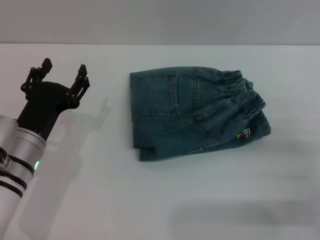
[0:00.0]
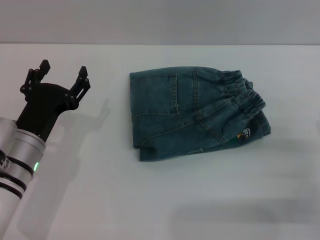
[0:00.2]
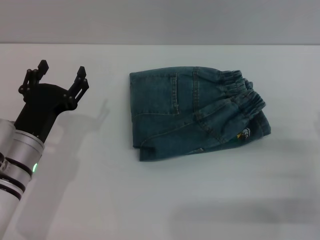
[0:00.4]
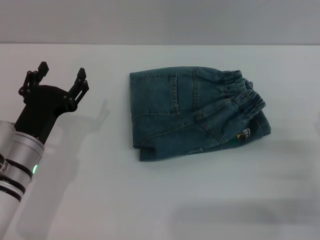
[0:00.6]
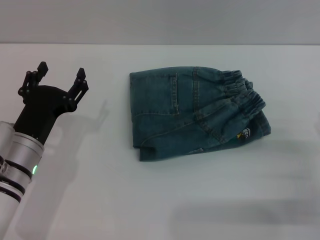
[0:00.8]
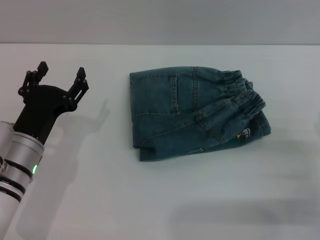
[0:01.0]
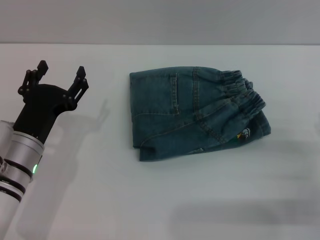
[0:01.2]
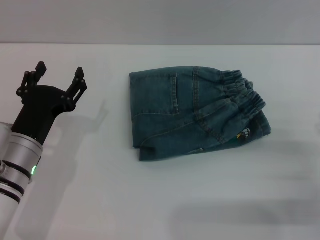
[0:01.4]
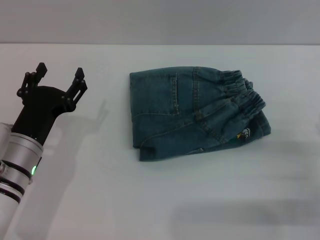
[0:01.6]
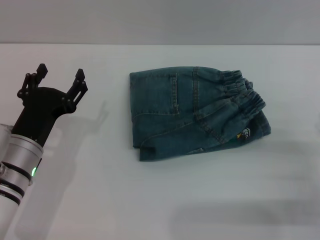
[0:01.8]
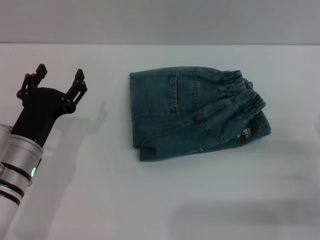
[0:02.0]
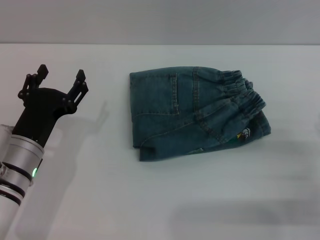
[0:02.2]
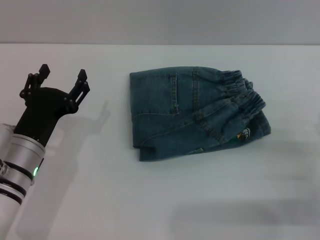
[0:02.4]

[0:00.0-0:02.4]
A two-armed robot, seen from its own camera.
1.2 to 2.4 s: Neither gripper changes place.

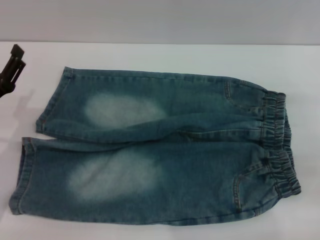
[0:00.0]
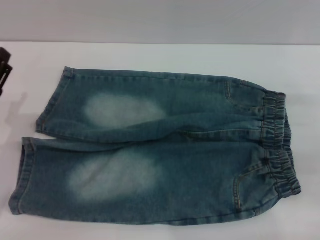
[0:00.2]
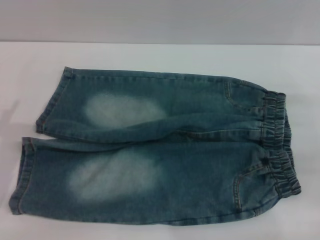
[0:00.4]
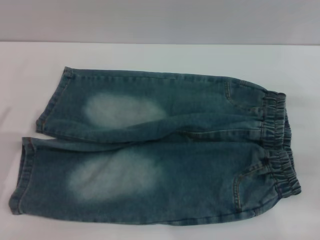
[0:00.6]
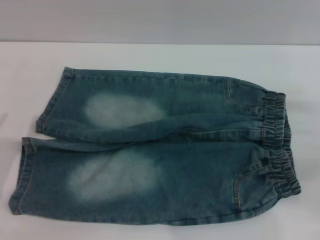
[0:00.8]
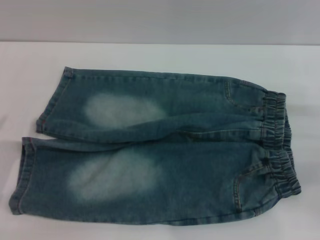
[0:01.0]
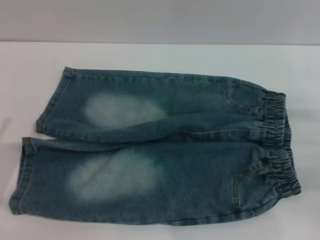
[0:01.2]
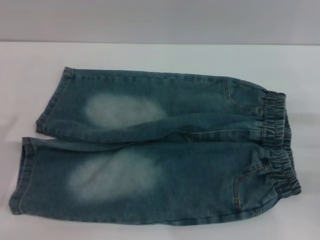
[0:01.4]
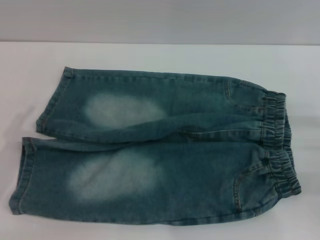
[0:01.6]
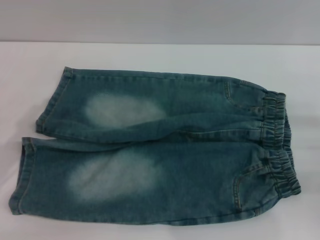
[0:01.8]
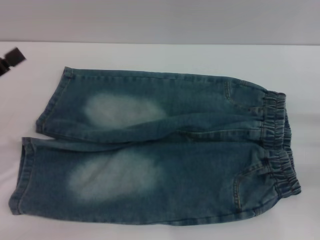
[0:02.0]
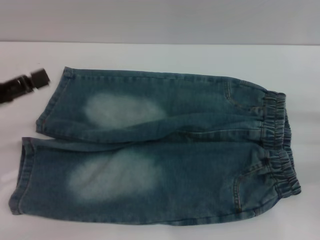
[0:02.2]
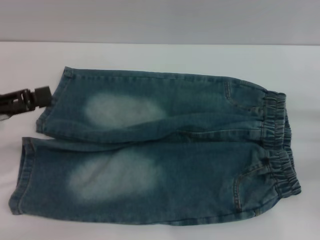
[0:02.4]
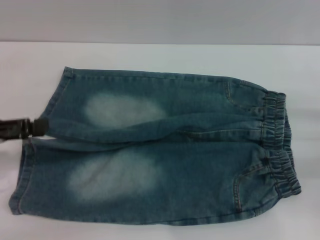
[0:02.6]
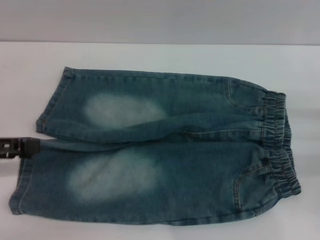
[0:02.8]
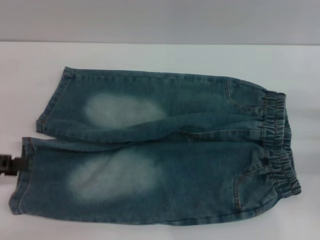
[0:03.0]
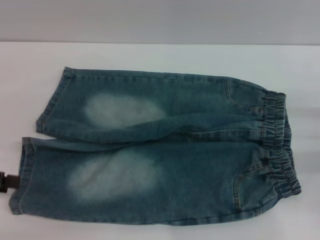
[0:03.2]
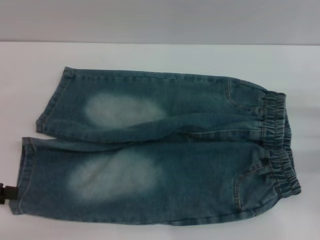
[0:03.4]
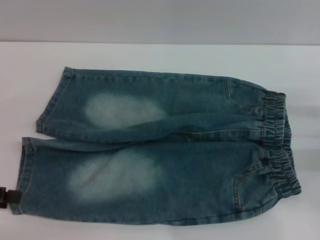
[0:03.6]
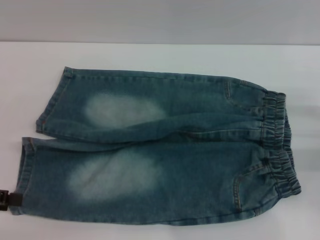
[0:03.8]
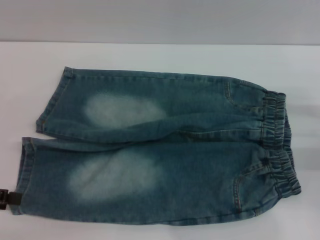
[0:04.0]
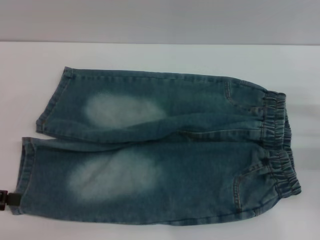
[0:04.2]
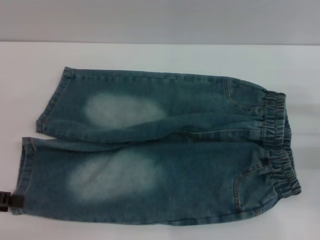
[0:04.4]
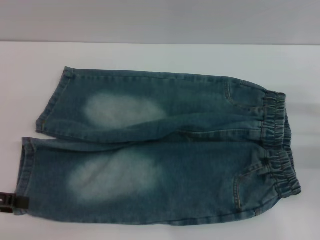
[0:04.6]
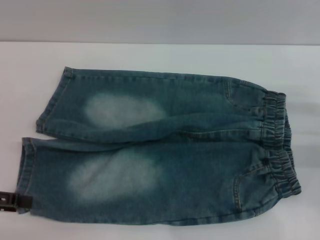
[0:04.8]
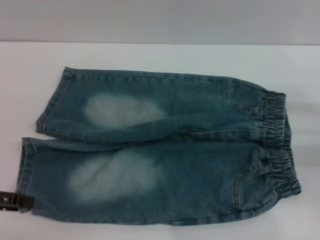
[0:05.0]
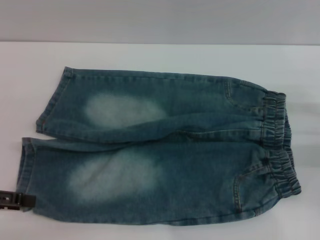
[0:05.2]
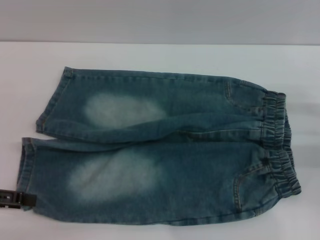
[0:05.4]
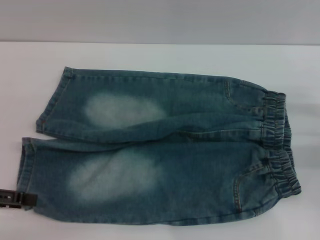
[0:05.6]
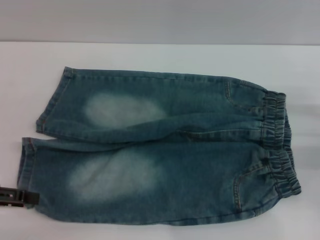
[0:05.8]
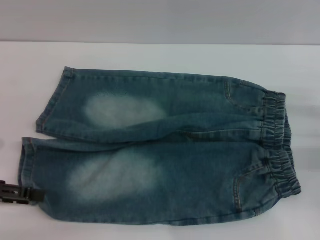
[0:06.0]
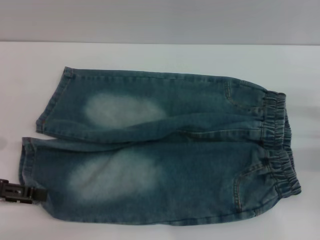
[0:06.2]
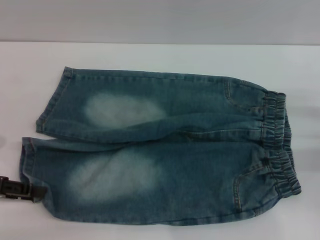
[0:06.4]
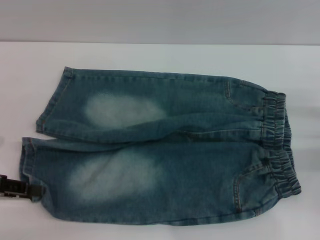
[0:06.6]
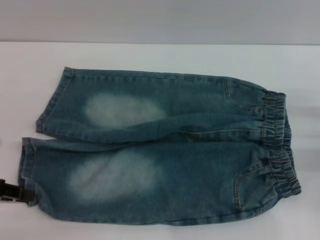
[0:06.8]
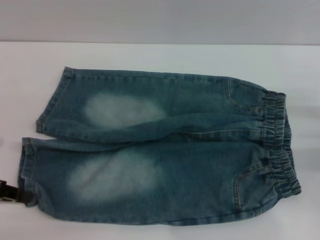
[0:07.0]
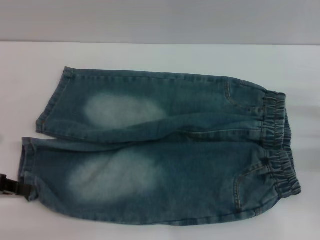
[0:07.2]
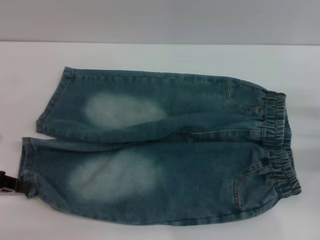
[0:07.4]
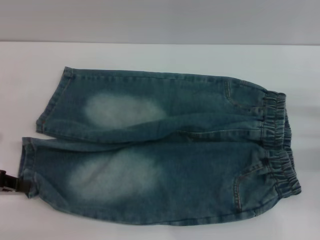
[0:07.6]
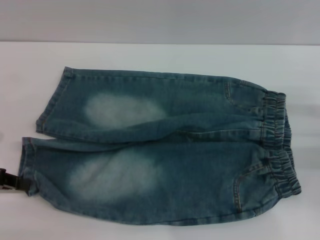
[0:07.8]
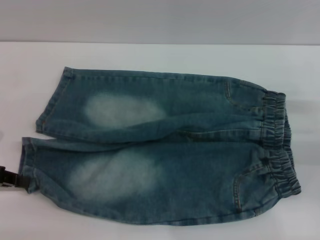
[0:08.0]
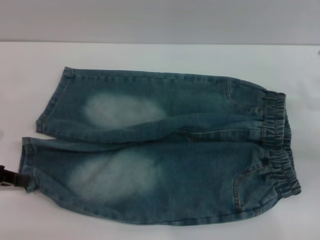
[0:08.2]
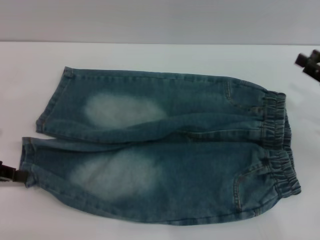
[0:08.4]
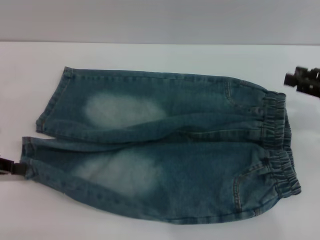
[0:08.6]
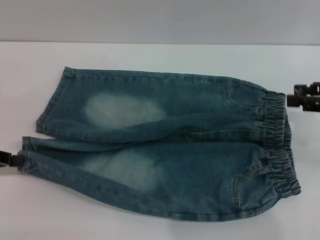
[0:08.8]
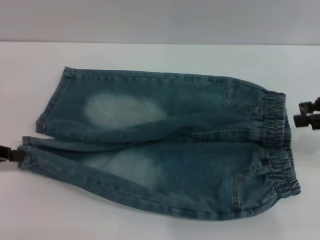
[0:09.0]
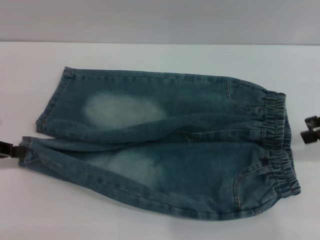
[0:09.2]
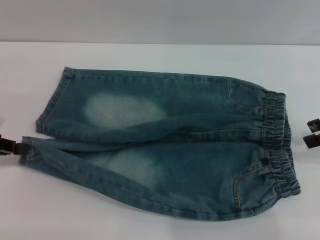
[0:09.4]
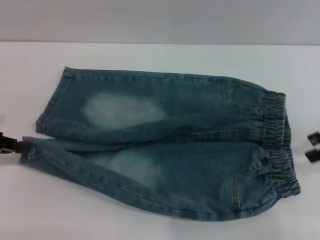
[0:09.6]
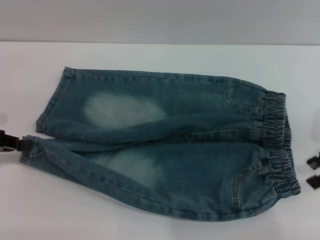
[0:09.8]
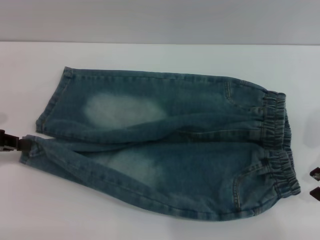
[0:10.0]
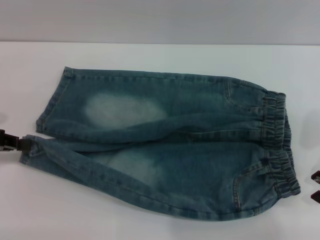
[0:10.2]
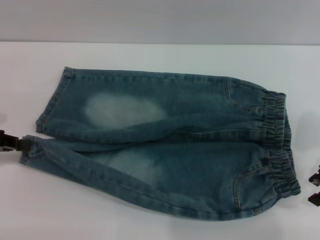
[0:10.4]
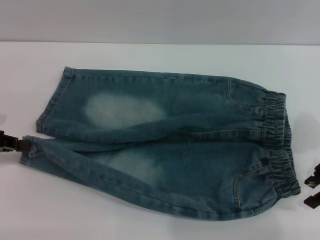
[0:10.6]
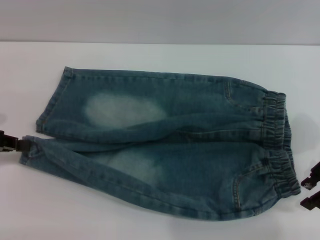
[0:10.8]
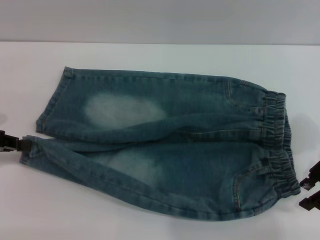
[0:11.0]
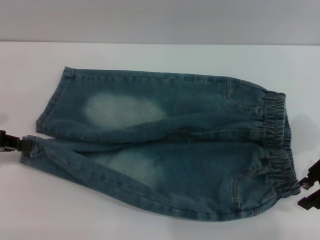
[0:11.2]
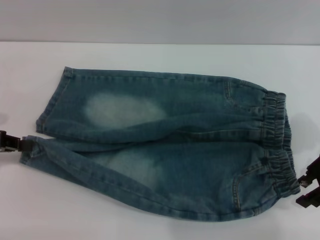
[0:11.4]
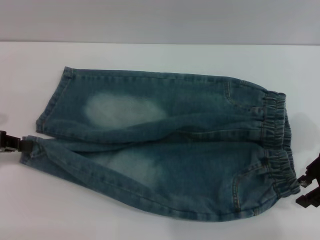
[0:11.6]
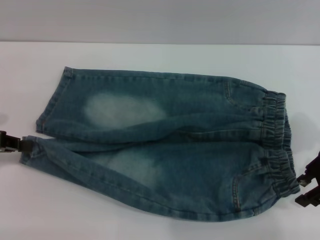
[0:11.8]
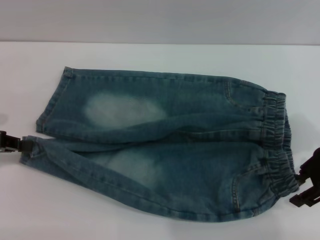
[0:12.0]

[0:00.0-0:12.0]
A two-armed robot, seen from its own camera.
0.0 to 1.6 s: The left gripper goes roughly 5 cm backward.
1.6 to 3.0 s: The left gripper travels to the left, forward and upward by roughly 10 cm.
3.0 to 6.0 s: The grippers stay close to where they were, moving slightly.
6.0 to 7.6 s: The left gripper closes up.
7.6 to 9.0 s: The right gripper travels upward by about 15 cm.
9.0 to 10.4 s: The right gripper travels to the left by about 5 cm.
10.4 to 12.0 s: The grippers make only small movements.

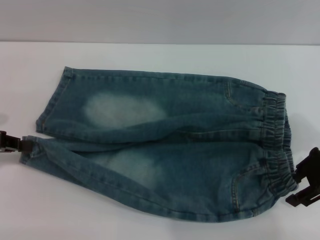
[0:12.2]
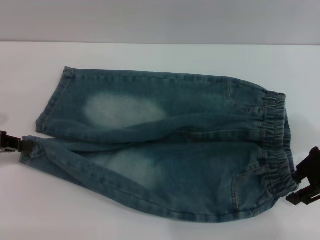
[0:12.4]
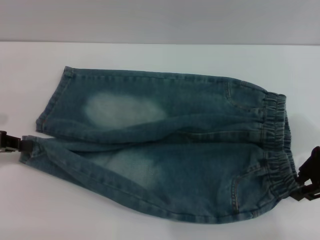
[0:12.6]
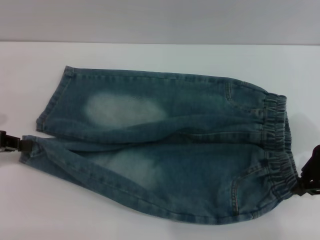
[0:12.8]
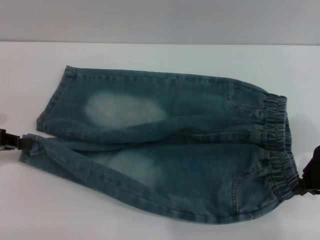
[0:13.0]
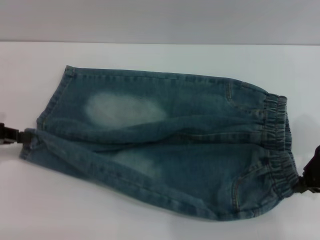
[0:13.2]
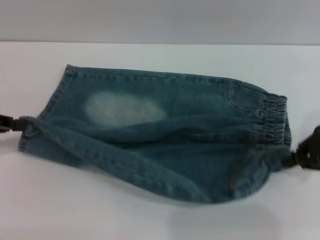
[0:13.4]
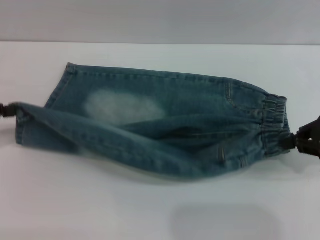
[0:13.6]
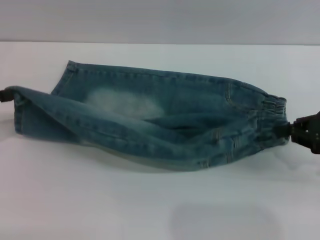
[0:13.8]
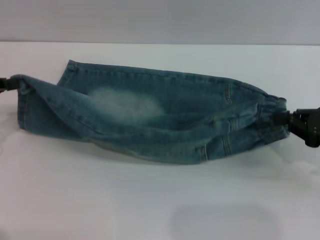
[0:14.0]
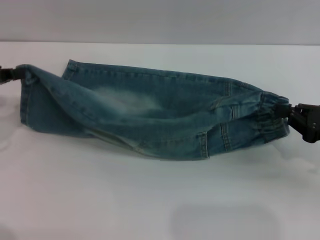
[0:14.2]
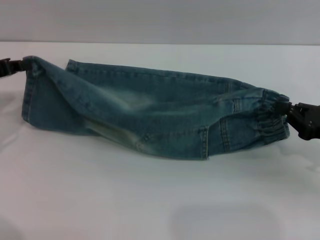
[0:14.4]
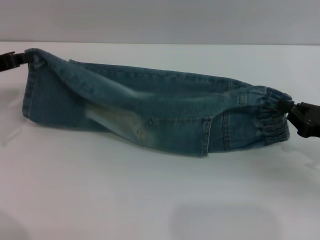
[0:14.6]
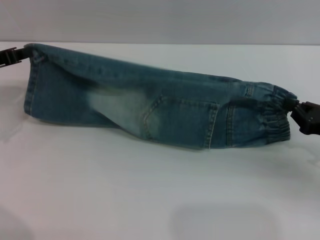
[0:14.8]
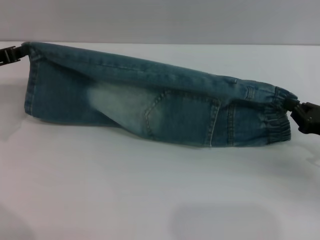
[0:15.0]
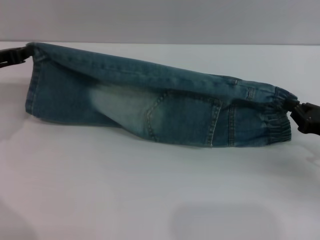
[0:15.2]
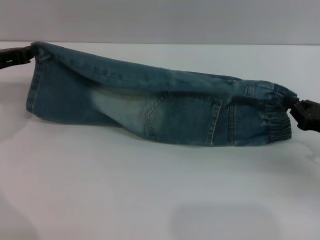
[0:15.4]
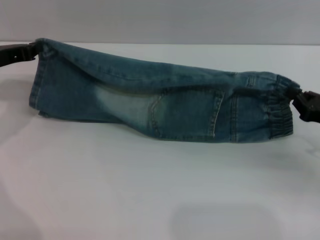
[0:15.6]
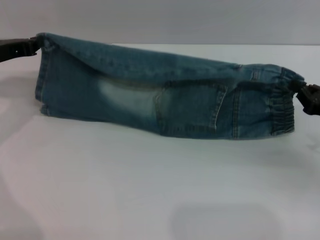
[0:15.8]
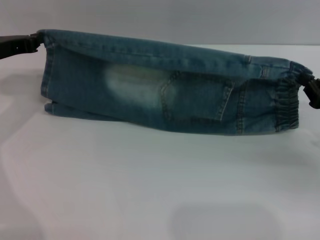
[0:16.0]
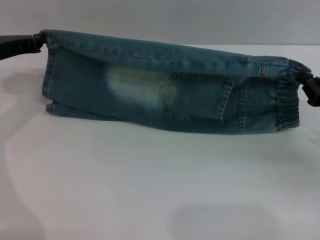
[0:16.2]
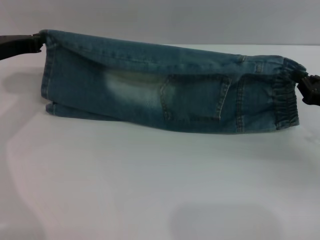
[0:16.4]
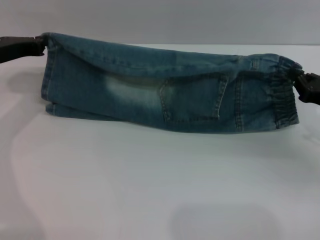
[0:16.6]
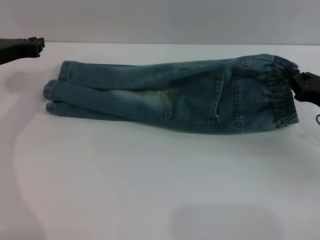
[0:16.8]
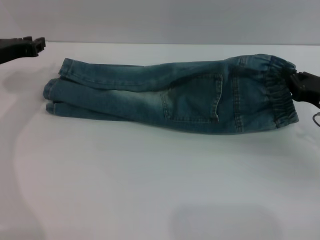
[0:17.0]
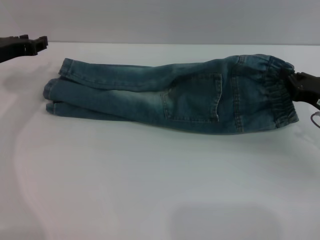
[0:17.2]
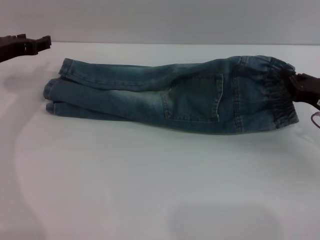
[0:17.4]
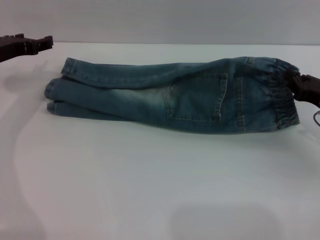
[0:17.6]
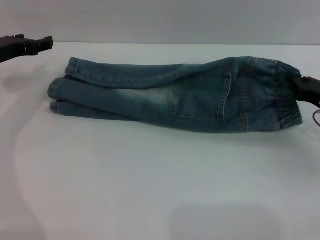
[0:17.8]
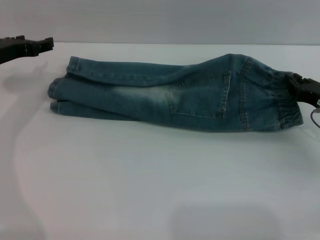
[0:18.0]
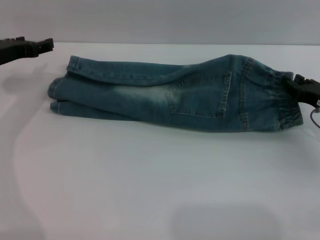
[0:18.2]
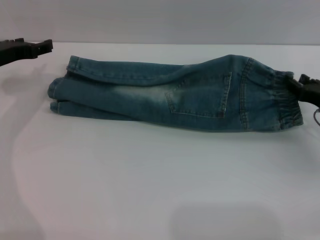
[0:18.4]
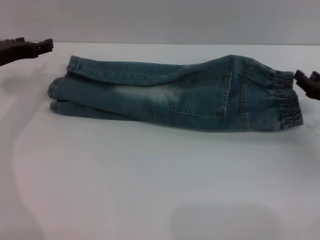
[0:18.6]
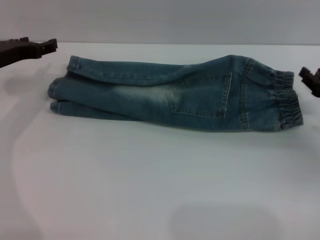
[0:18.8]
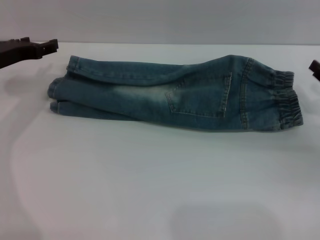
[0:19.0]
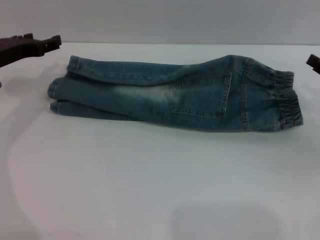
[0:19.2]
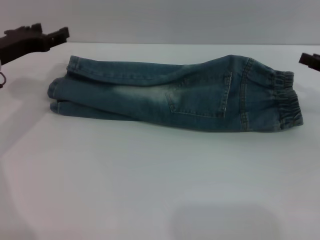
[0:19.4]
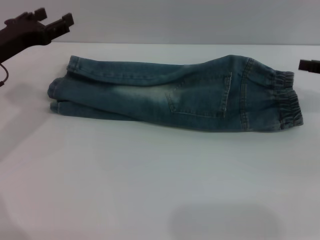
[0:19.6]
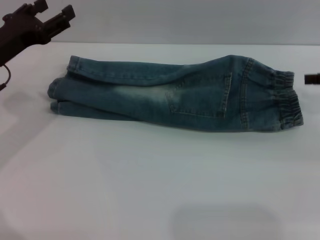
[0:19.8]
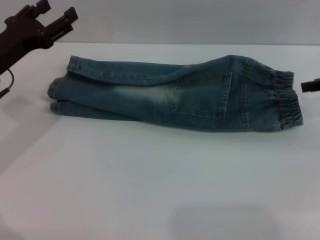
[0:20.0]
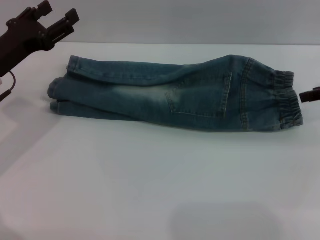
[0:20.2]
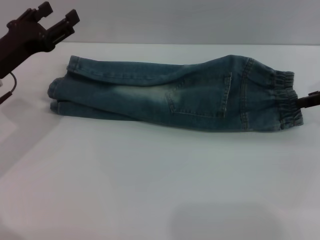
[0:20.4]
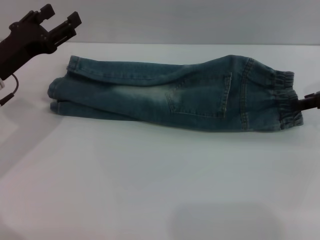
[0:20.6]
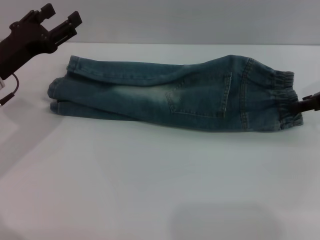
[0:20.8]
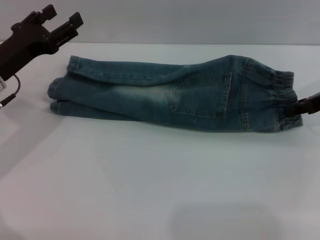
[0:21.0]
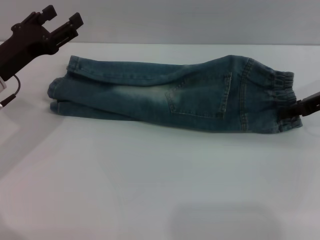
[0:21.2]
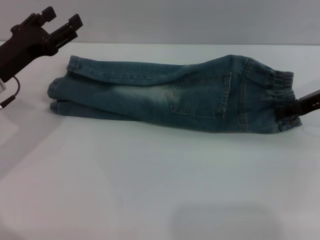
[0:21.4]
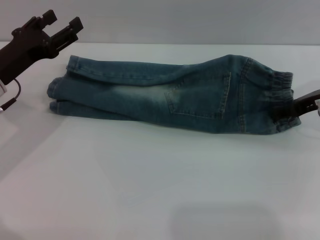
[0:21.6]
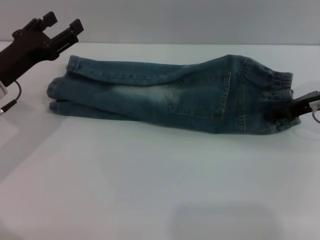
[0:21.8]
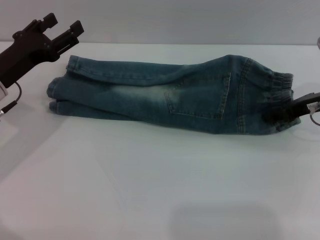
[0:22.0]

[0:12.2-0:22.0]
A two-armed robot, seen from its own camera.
Step, 12.2 to 18.4 s: Fold the bottom of the pants upward with both grippers.
12.2 to 13.6 s: The right gripper closes up.
13.6 to 15.0 s: The right gripper shifts about 10 cm downward; the left gripper travels forward and to the right by some 10 cm.
16.4 to 17.8 s: The left gripper opens up.
17.8 to 19.2 s: The right gripper changes place by some 5 cm, and opens its fingers.
19.2 to 20.6 s: The right gripper travels upward and forward by roughly 10 cm; the left gripper is displaced backward by about 5 cm.
20.6 to 22.0 s: The right gripper changes place by about 5 cm.
